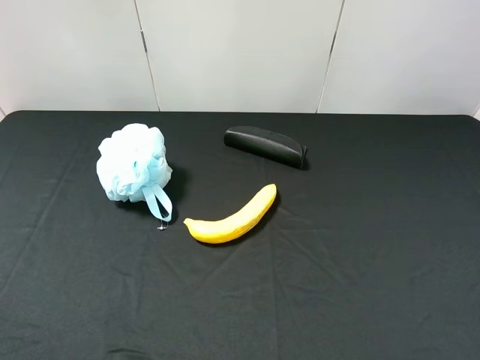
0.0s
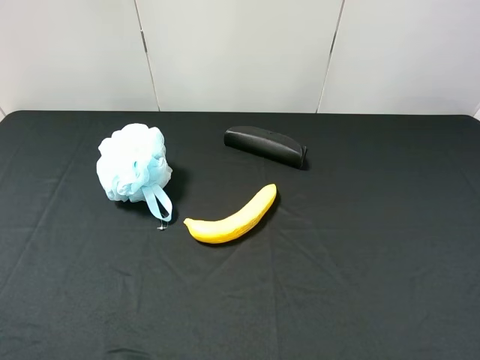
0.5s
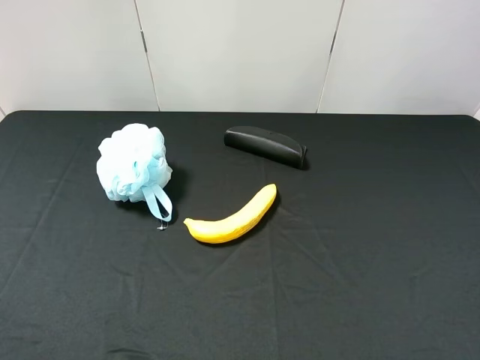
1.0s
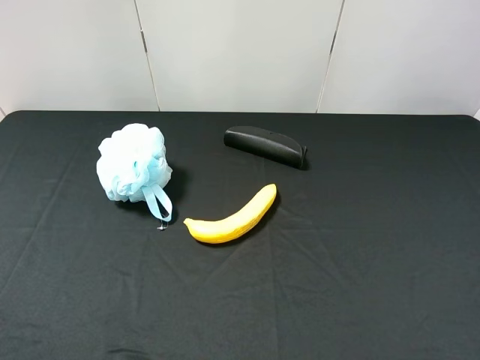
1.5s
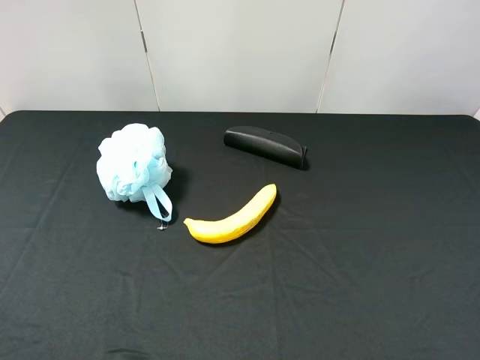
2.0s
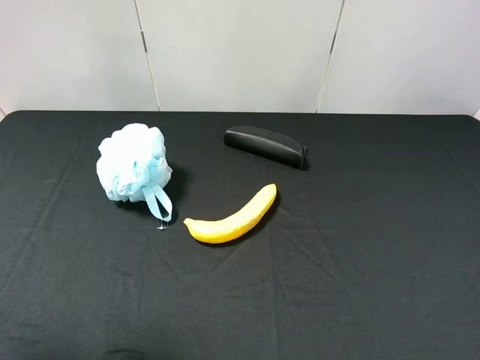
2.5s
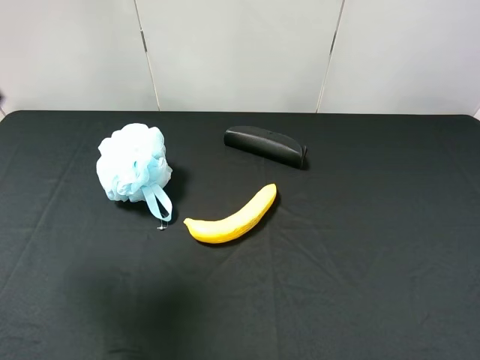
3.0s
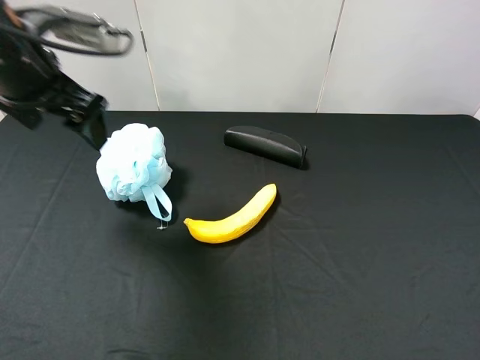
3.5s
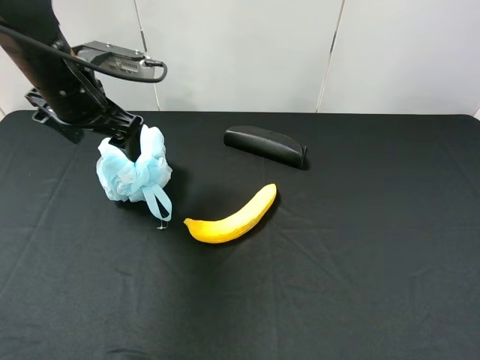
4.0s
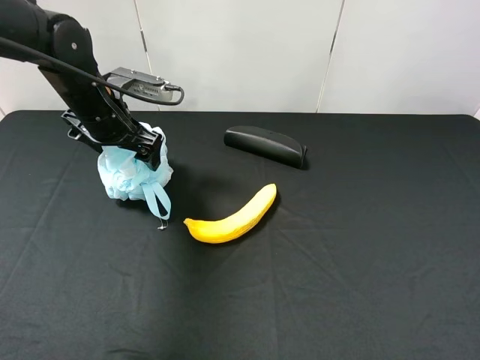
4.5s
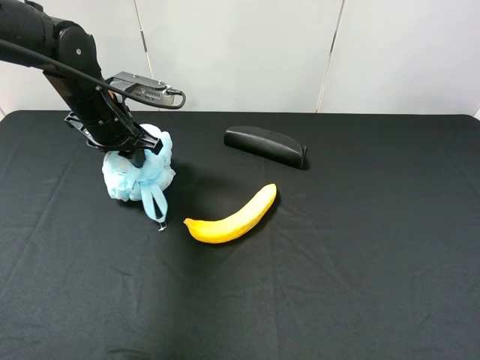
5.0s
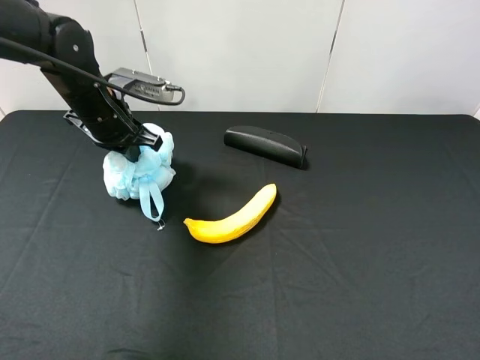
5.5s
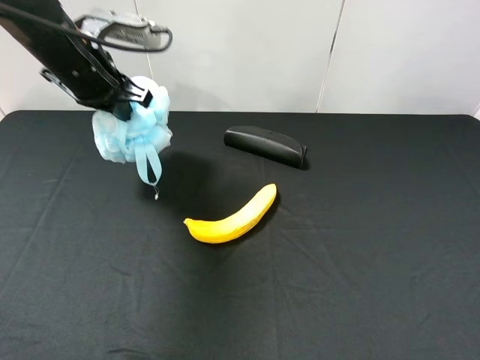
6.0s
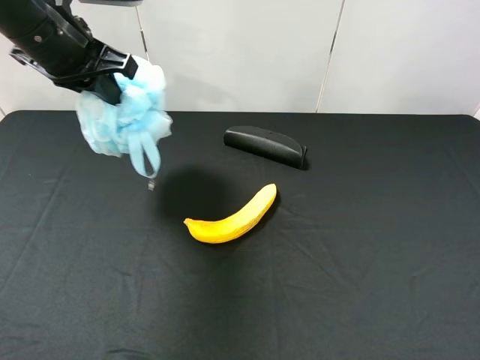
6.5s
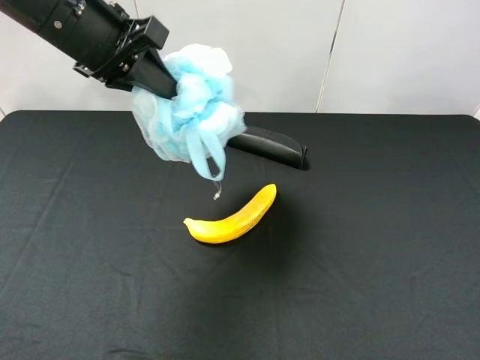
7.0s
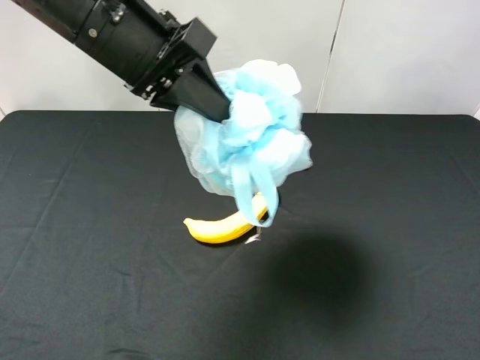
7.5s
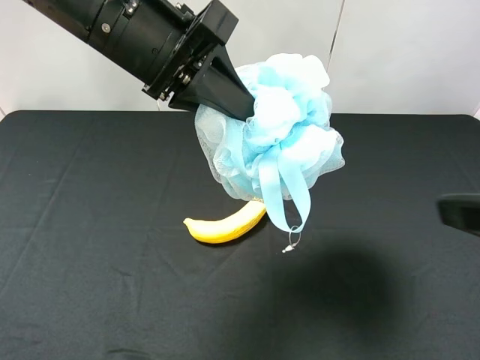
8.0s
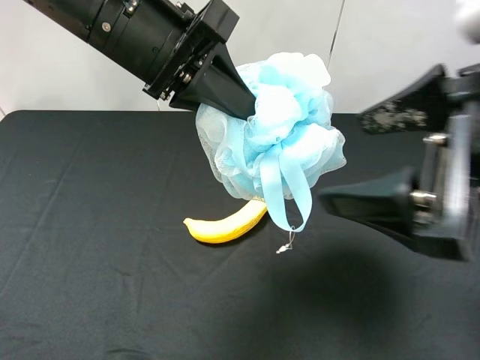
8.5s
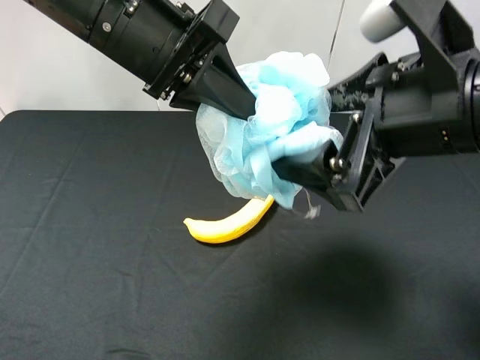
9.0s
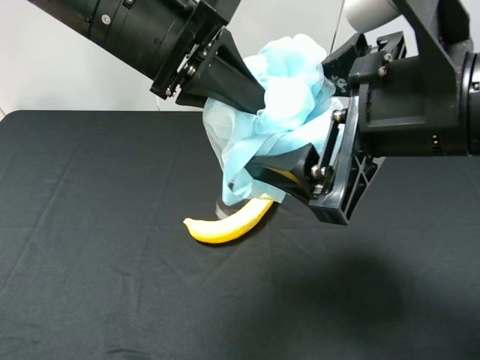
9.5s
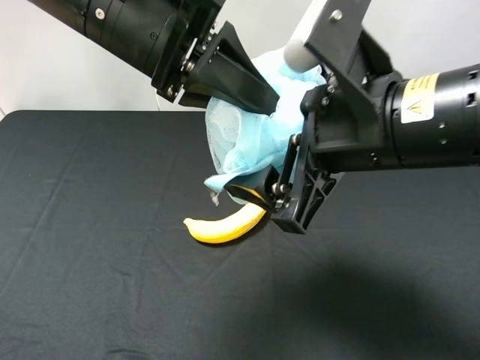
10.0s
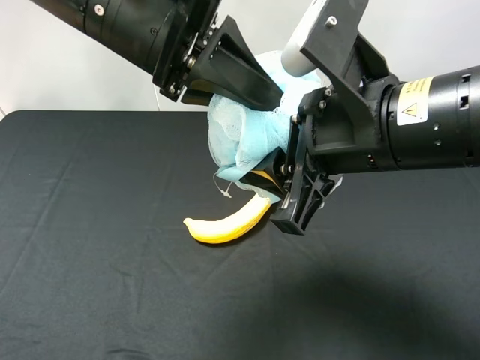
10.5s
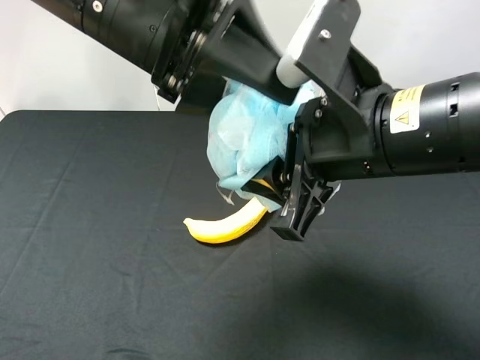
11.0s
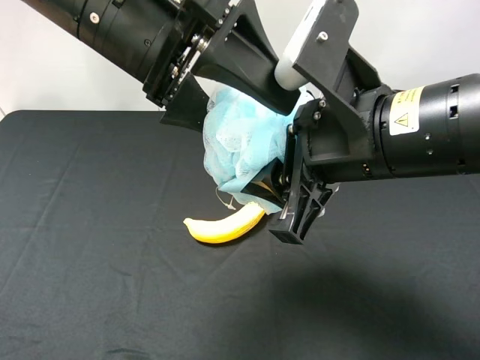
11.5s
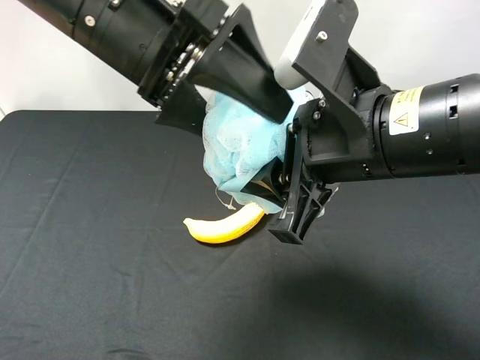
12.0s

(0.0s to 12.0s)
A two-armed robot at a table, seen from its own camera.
Task of the whole recording: use the left gripper to pick up the item and transfer it from the left gripper to the right gripper.
2.0s - 4.0s: The left gripper goes approximately 30 cm forward.
4.0s - 6.0s: The left gripper travels downward and back again, about 5 cm each way, and closes.
6.0s - 8.0s: The left gripper is displaced to the right, backward and upward by some 15 cm. The right gripper shifts approximately 10 cm forward, to the left and upward.
8.0s - 10.0s: The right gripper is displaced to the left and forward by about 15 cm.
10.0s - 12.0s: The right gripper closes; the left gripper opens its fingers.

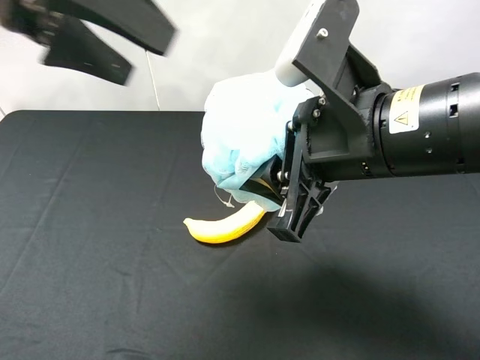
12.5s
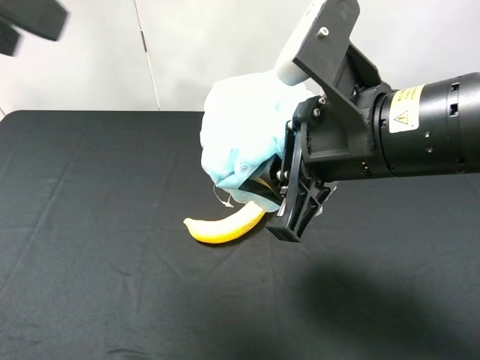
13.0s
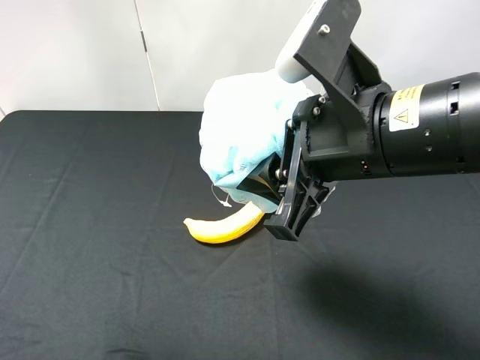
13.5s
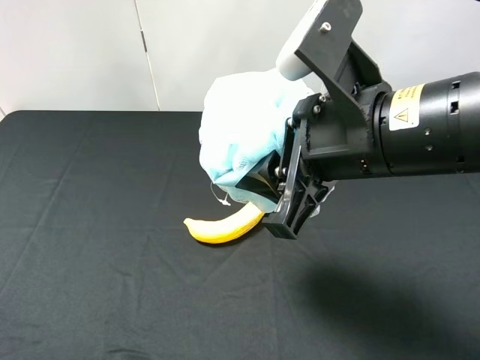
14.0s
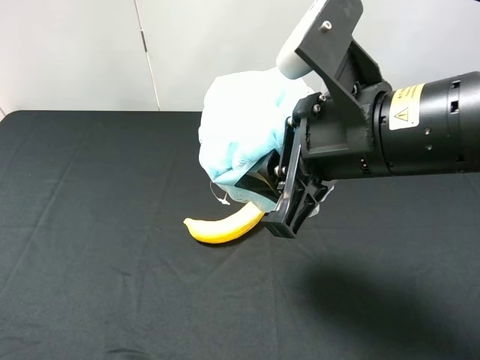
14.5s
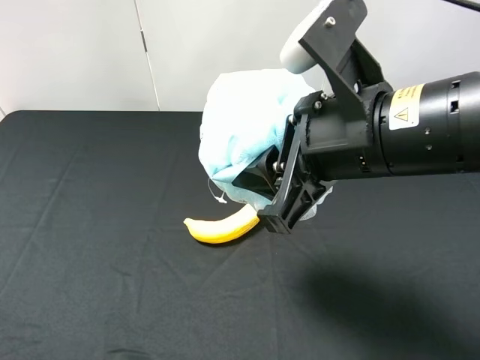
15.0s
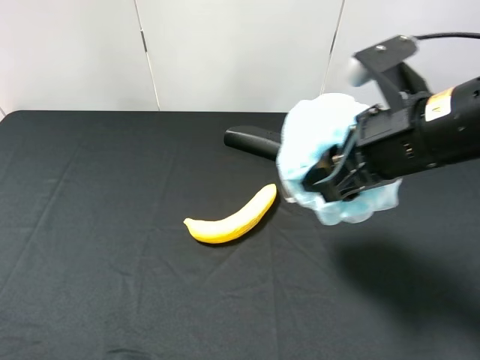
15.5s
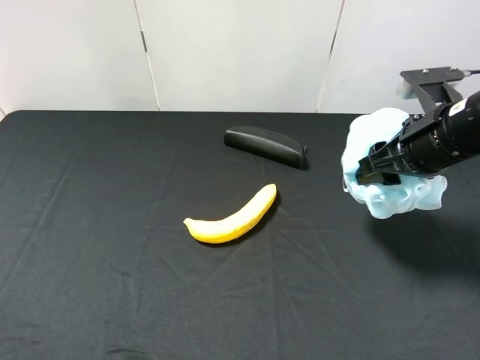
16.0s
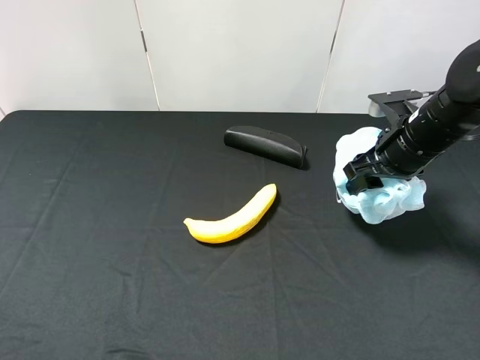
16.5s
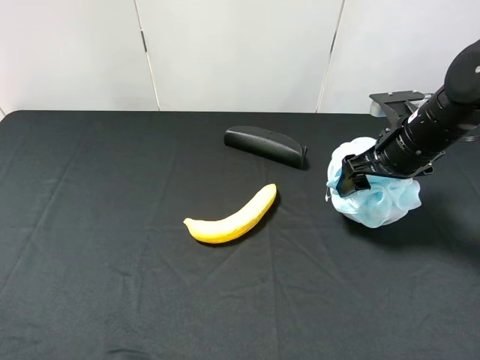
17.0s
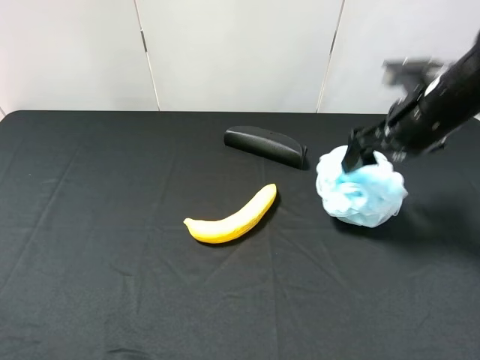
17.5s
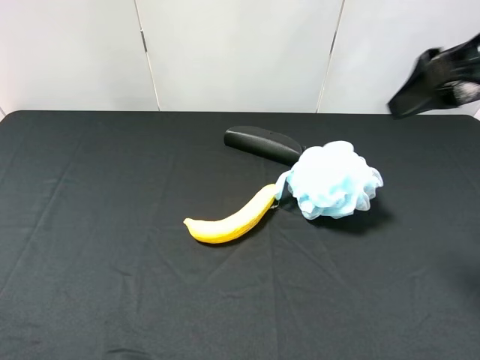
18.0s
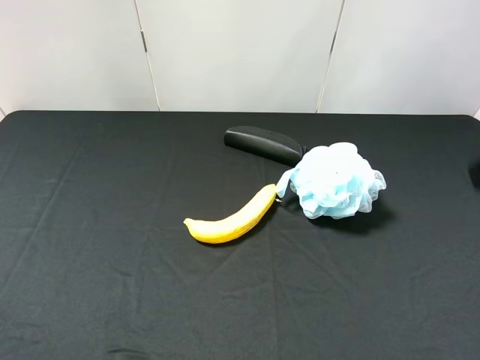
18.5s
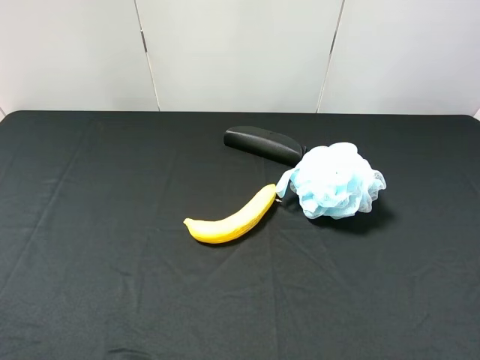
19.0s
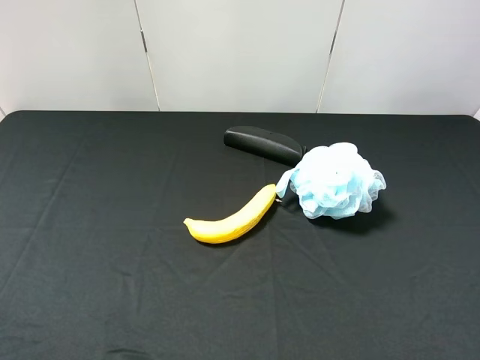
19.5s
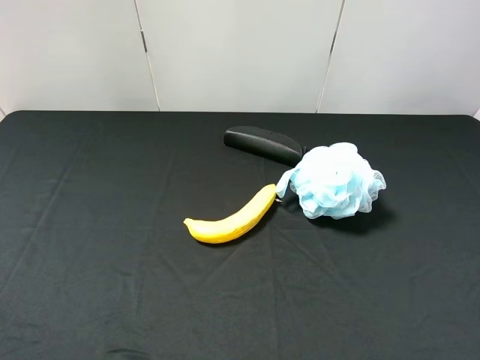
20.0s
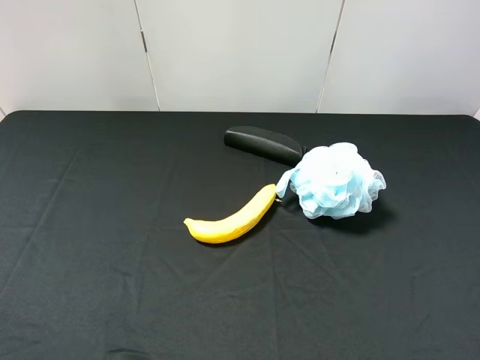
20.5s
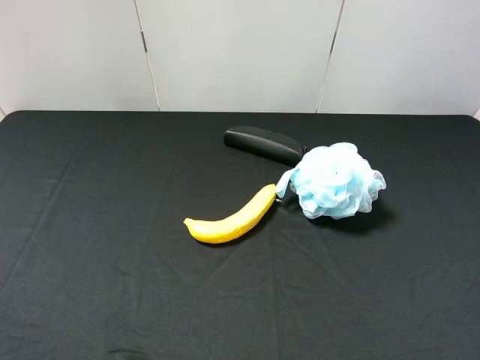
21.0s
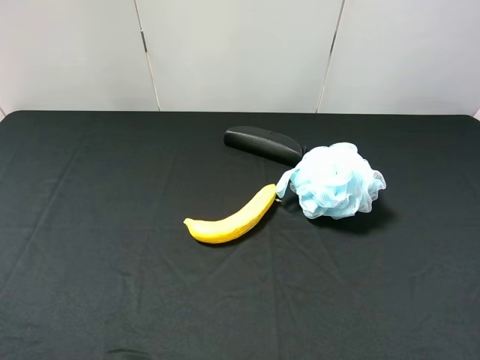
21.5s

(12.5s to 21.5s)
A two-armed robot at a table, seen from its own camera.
Task of the whole recording: use the left gripper to pick up the item and transfer it from the left gripper to the right gripper.
12.5s - 14.5s: The left gripper is displaced backward, to the left and downward by approximately 30 cm.
14.5s - 17.0s: The right gripper heads forward, to the right and downward, covering some 20 cm, and opens up.
17.0s - 19.5s: The right gripper is displaced backward by roughly 30 cm.
